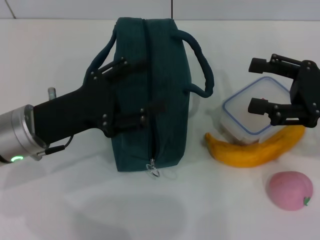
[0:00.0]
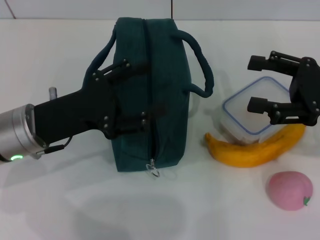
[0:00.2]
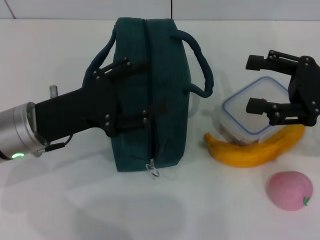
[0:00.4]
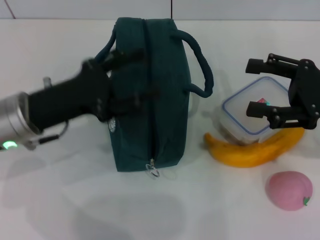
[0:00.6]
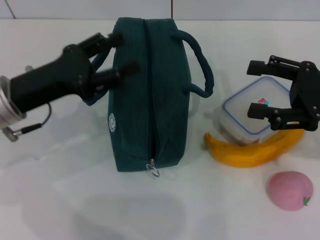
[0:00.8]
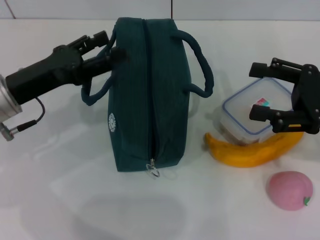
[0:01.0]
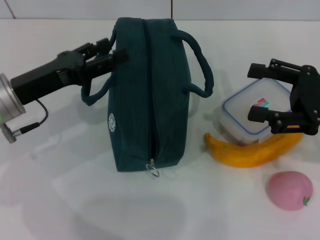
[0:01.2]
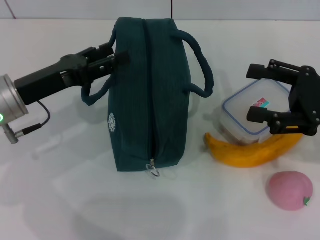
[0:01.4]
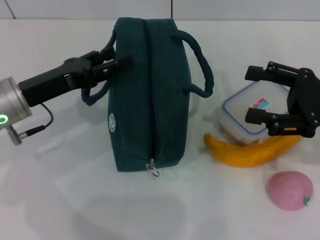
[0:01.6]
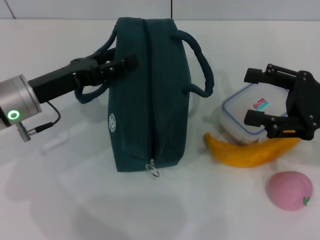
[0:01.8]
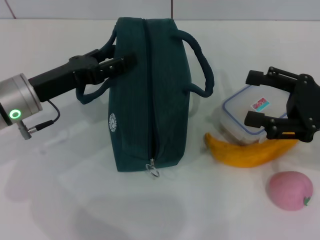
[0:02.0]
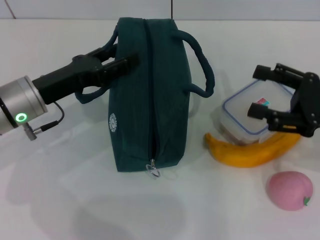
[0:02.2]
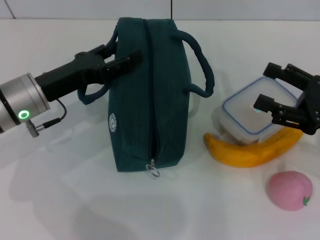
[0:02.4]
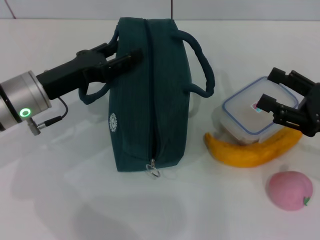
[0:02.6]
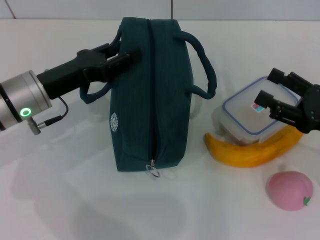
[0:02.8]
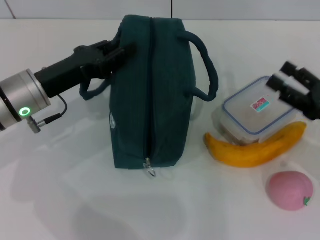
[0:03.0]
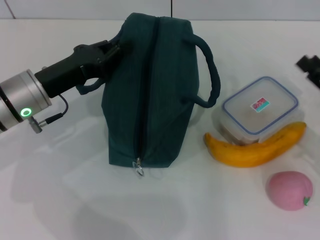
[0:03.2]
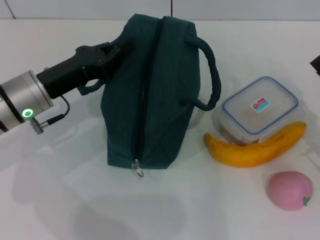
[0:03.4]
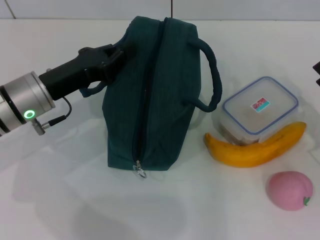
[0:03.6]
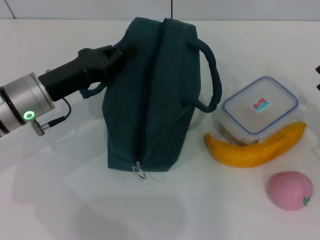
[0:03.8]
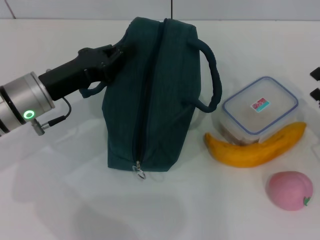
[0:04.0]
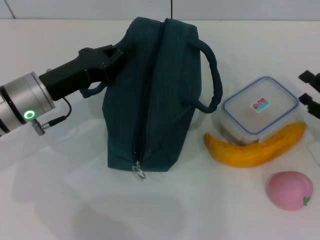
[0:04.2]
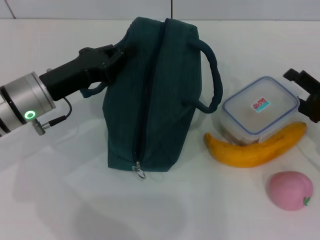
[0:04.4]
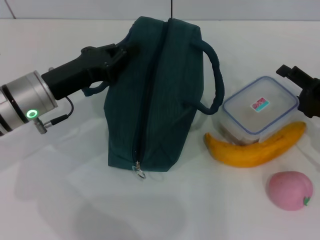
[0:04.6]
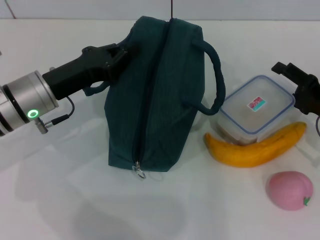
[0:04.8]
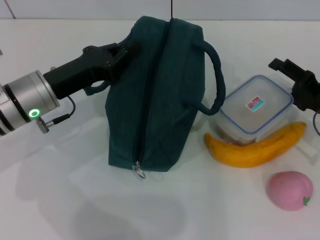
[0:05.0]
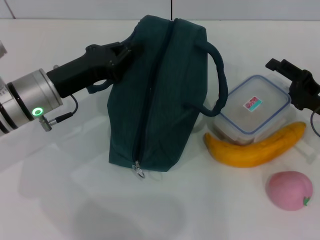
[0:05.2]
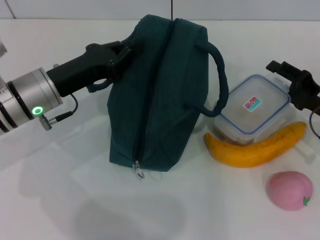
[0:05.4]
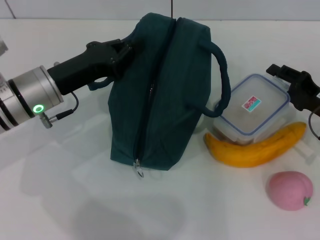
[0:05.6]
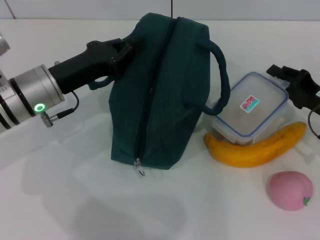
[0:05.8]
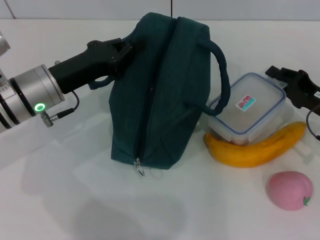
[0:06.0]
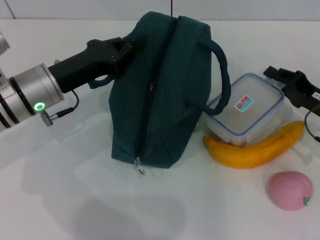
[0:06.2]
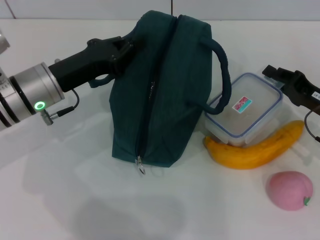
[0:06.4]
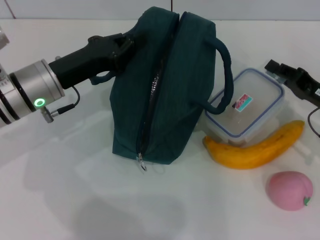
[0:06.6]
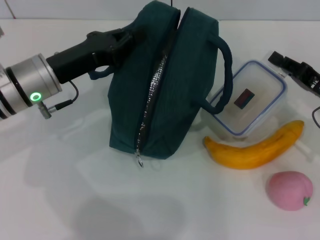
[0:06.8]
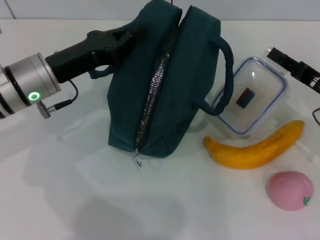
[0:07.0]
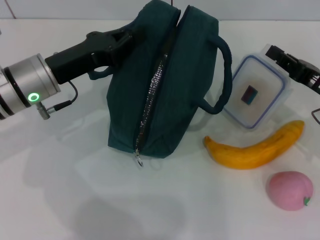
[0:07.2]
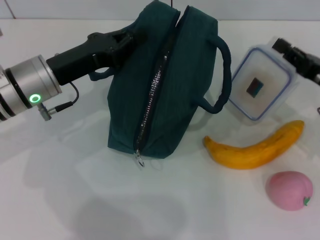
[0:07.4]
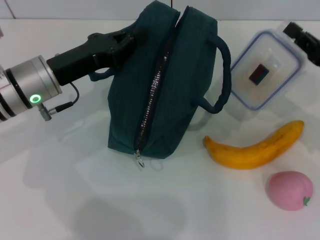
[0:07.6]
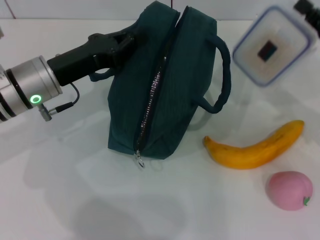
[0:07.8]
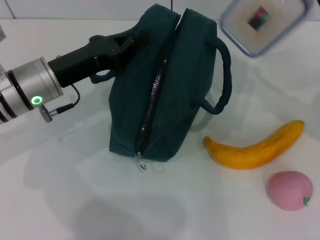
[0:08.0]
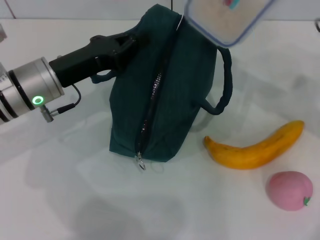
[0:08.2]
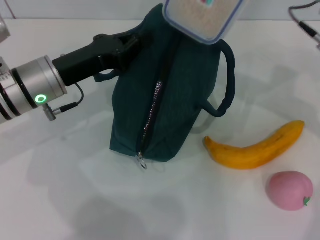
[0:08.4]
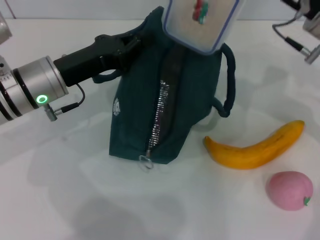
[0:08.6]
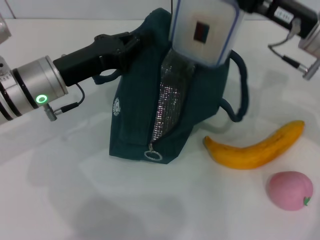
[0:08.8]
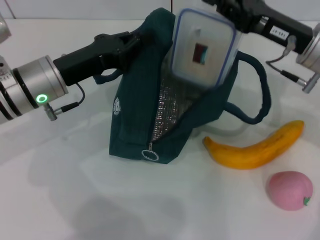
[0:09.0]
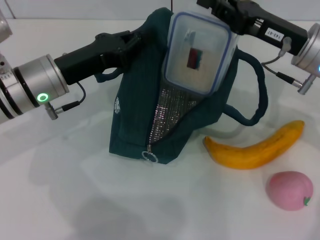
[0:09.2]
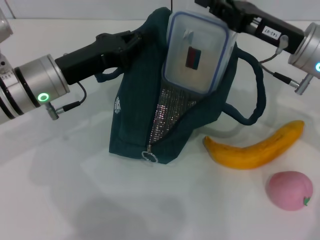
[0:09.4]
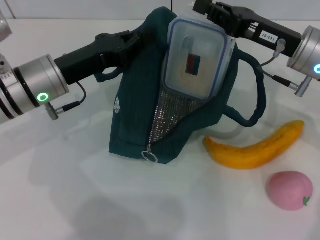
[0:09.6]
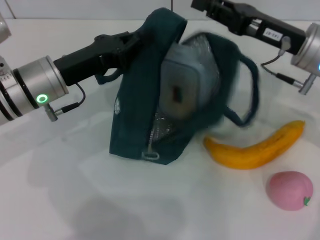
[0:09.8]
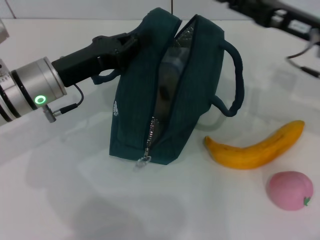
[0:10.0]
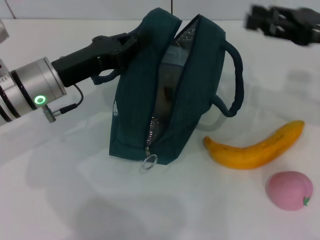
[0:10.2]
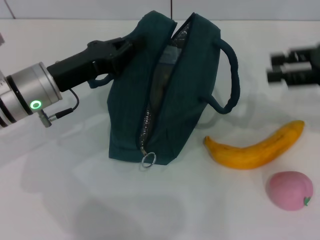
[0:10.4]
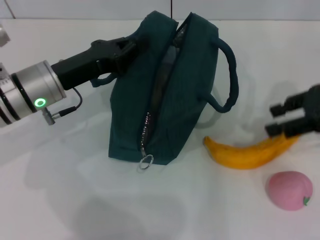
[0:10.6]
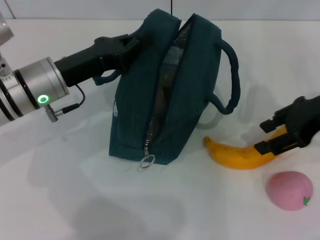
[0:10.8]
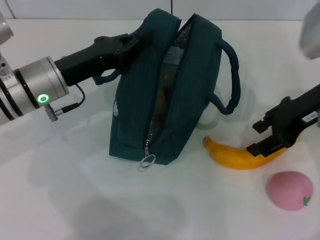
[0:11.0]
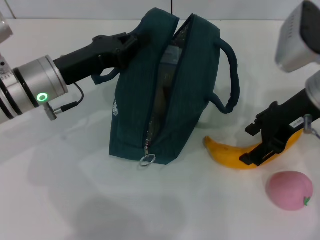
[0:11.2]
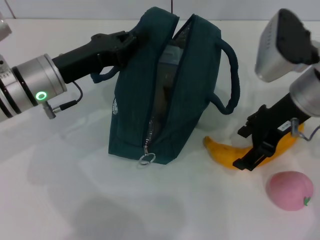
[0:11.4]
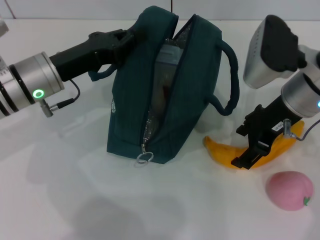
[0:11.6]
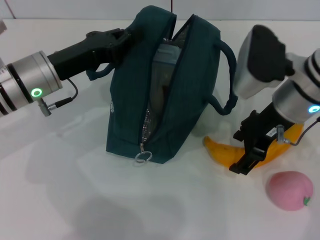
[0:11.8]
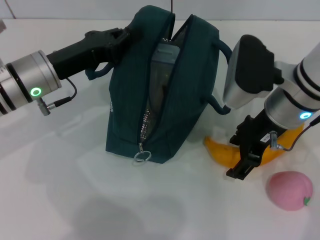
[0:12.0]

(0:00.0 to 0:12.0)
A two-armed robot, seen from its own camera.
Step, 0:00.0 - 0:04.0: Hold the lunch bag with your left hand.
Step, 0:04.4 - 0:06.0: Pick up the lunch box with your right hand.
Step, 0:06.2 - 0:09.8: Place the lunch box into the lunch bag with your right hand.
0:01.6 - 0:03.0: The left gripper closes its fingers; the right gripper travels downward by about 5 cm.
0:03.0 - 0:04.4: The left gripper closes its fingers.
0:04.4 - 0:06.0: The right gripper closes up.
0:06.0 - 0:07.6: The right gripper changes place by some 5 cm.
0:07.6 - 0:09.0: The right gripper goes some 10 cm to the left and upward.
0:09.0 - 0:10.4: The right gripper travels to the right and upward by some 10 cm, and opens up.
0:10.4 - 0:12.0: The right gripper shifts some 15 cm to the left.

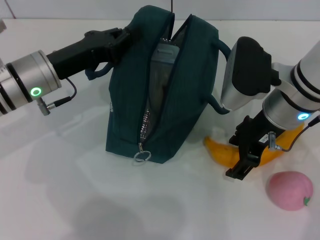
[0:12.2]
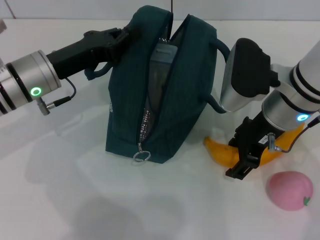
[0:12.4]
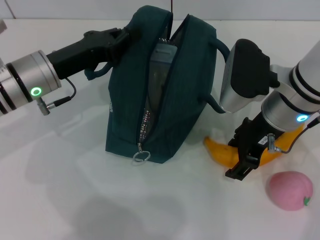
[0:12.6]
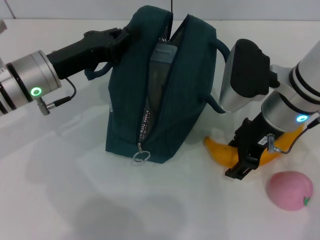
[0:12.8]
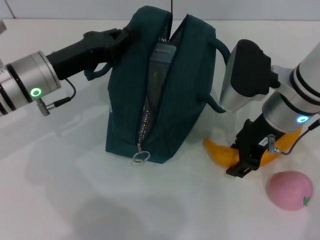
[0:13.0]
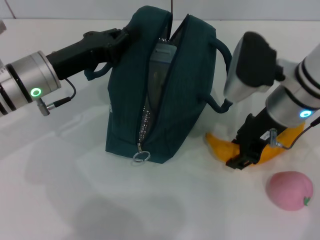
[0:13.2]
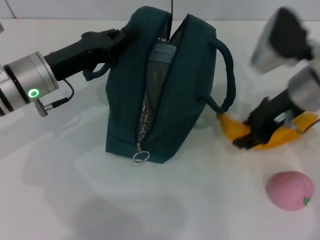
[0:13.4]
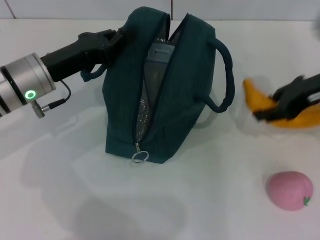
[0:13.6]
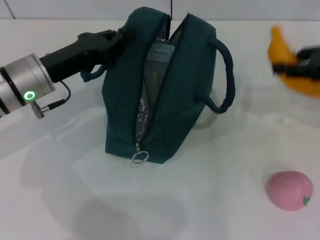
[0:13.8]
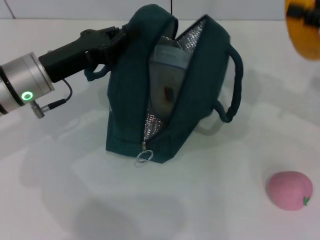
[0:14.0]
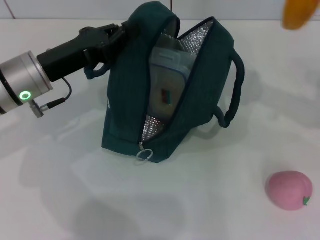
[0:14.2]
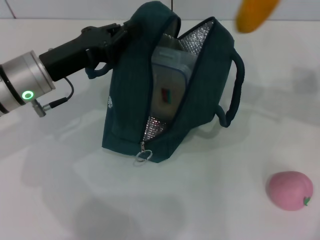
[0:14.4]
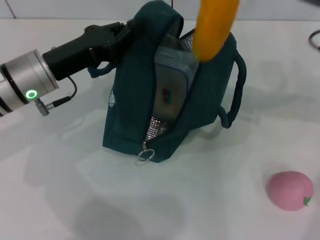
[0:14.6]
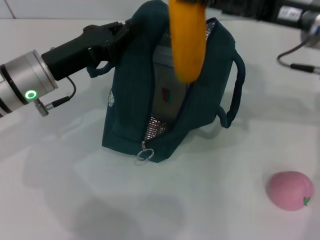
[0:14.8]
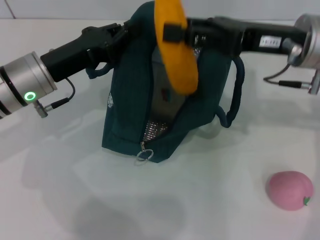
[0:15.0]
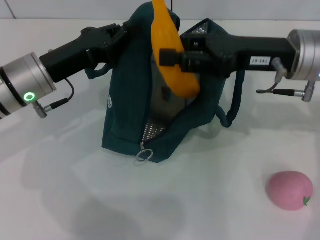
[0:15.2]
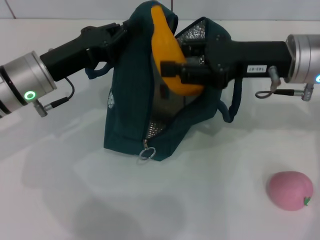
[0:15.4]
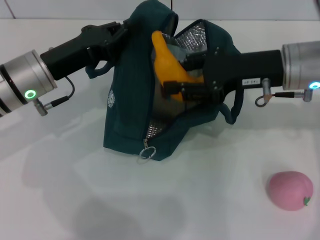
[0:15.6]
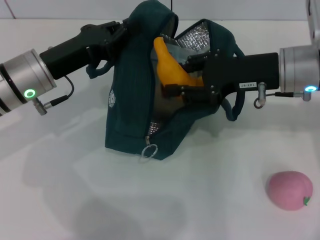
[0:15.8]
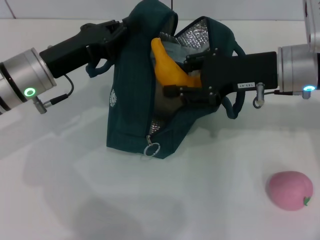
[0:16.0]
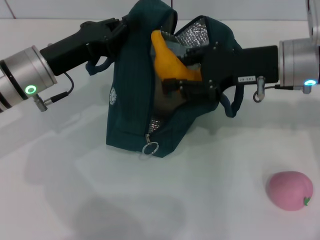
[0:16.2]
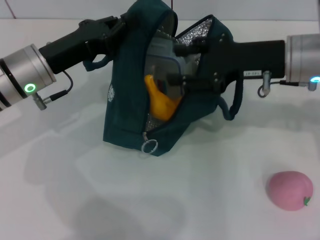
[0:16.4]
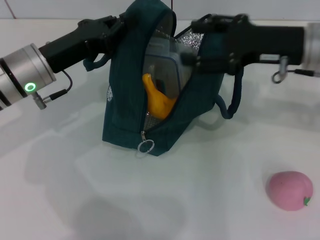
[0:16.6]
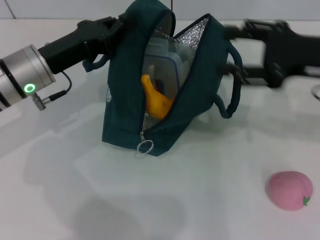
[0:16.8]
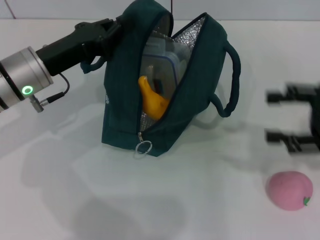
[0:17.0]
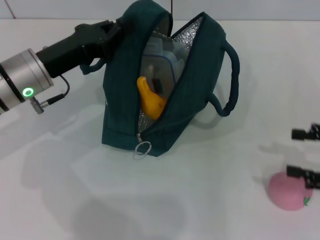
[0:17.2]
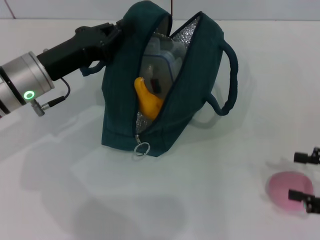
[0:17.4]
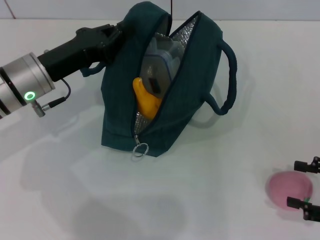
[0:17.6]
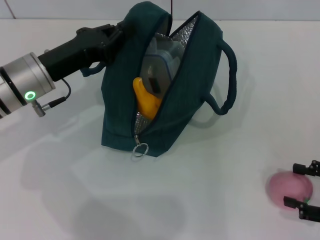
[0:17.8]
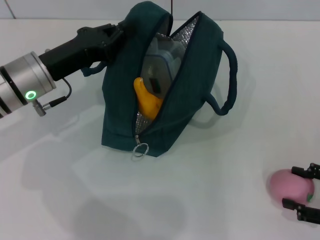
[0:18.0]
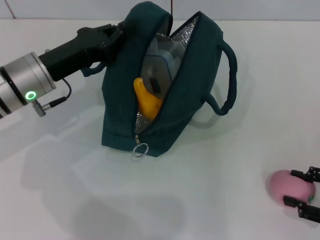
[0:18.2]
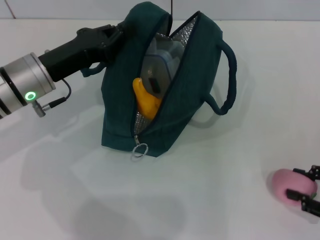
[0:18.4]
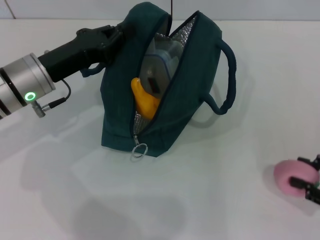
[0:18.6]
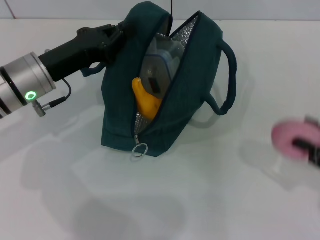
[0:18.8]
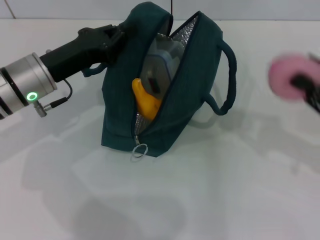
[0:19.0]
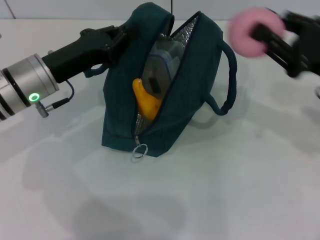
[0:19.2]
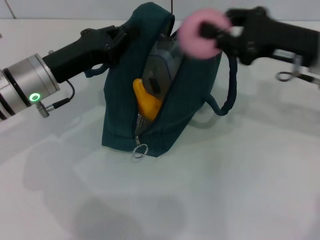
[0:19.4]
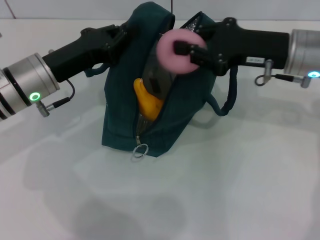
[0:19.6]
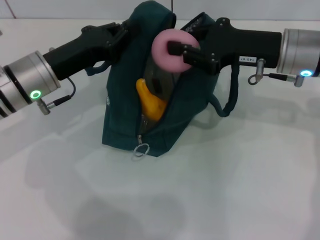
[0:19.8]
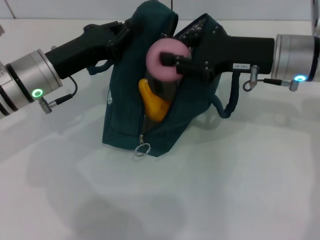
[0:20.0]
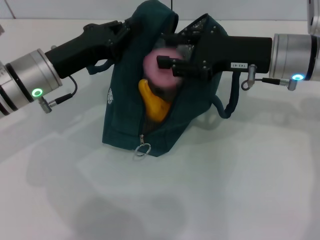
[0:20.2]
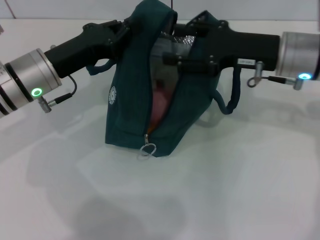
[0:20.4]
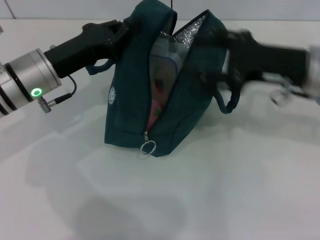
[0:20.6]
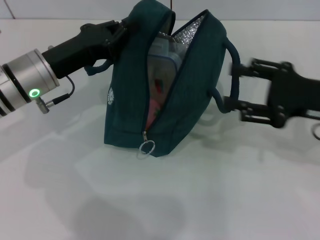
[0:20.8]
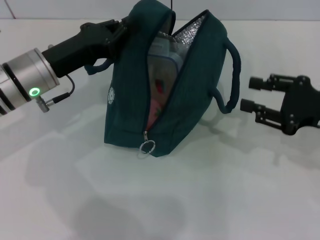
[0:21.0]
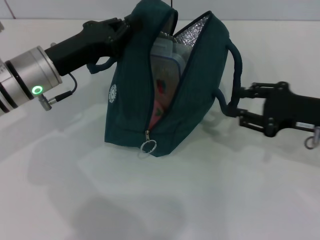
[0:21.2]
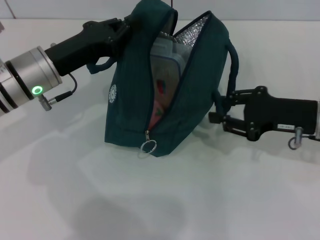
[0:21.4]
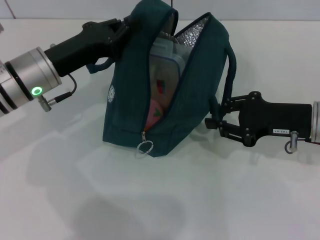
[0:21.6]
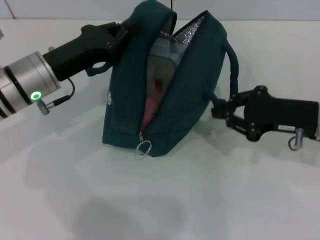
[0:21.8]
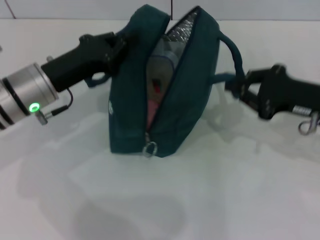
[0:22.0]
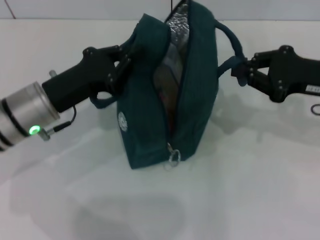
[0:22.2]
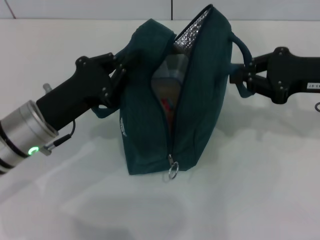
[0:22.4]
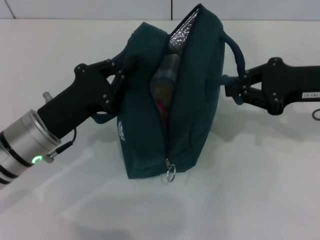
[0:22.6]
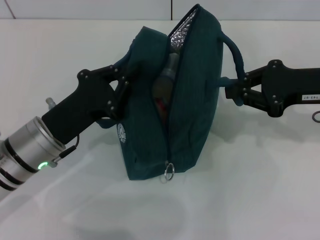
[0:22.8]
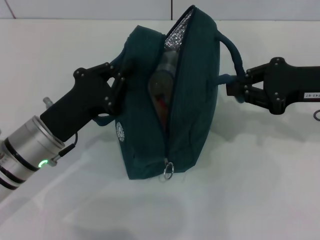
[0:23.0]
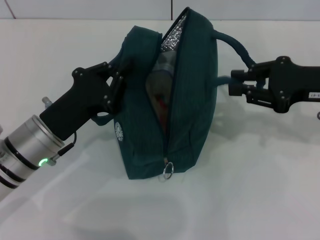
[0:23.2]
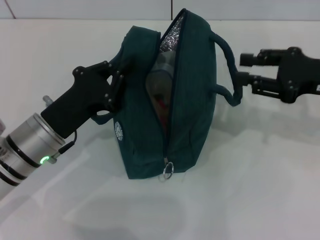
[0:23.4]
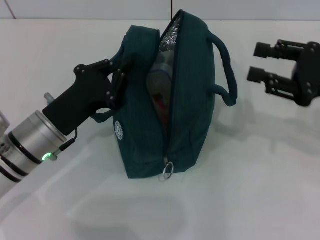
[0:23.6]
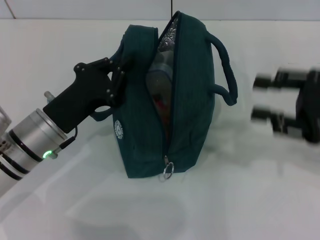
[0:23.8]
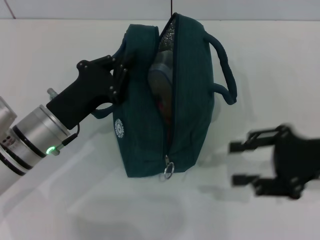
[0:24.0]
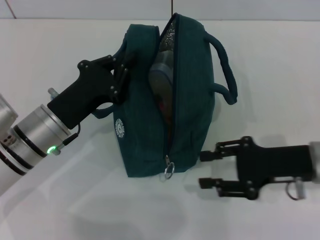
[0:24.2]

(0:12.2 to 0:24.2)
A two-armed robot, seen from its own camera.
Step, 0:13.2 - 0:16.4: Put the banana into the lunch bag with your right hand.
Step, 0:16.6 - 0:18.2: Grab the peach with your right hand.
Step, 0:20.8 - 0:23.2: Hold the lunch bag with your right hand.
0:12.2 - 0:13.8: The right gripper goes approximately 15 cm to the right, and closes up.
0:13.8 - 0:15.2: The right gripper goes approximately 10 cm to the left.
0:16.6 - 0:18.2: The right gripper goes approximately 25 cm backward, downward and to the right.
0:18.2 - 0:19.8: The right gripper moves forward, to the left and upward, about 25 cm, and closes.
0:19.8 - 0:21.2: The right gripper travels to the right, backward and downward by roughly 10 cm, and opens.
0:21.2 - 0:22.6: The left gripper travels backward by roughly 10 cm; the right gripper is displaced upward by about 5 cm, and closes its fingers.
0:22.6 - 0:24.2: The right gripper is displaced downward and backward by some 10 cm, and opens its fingers.
